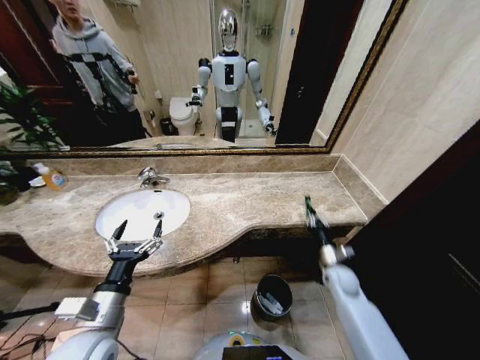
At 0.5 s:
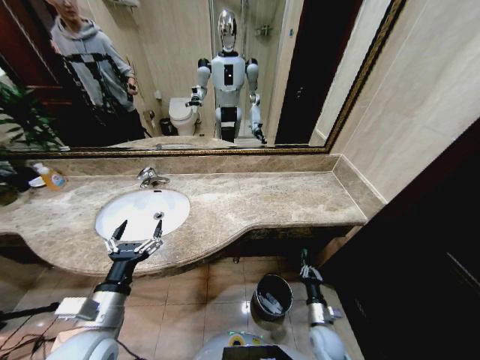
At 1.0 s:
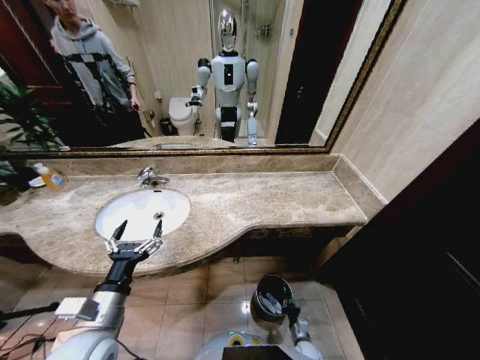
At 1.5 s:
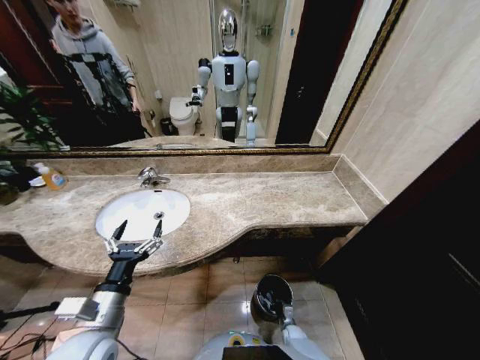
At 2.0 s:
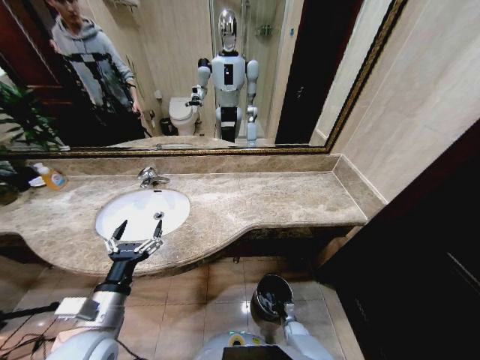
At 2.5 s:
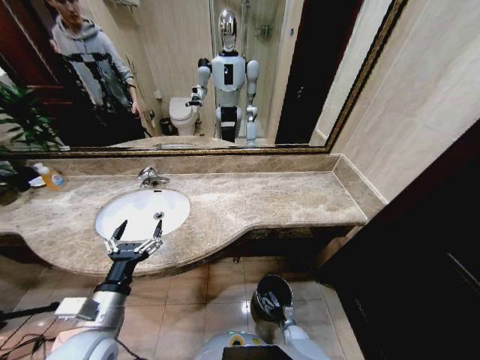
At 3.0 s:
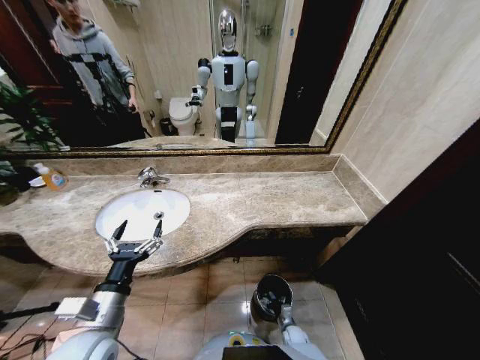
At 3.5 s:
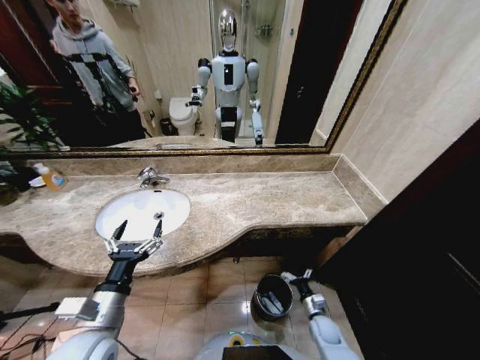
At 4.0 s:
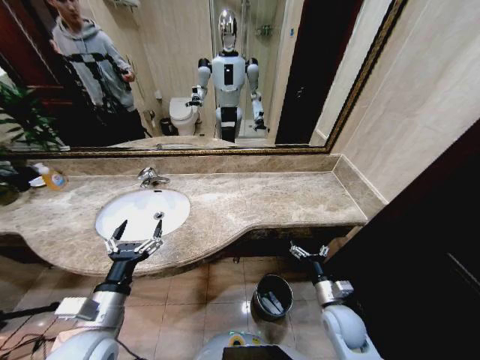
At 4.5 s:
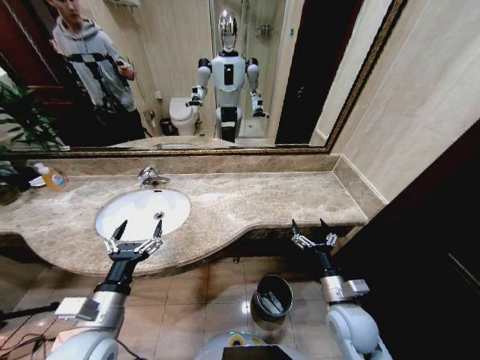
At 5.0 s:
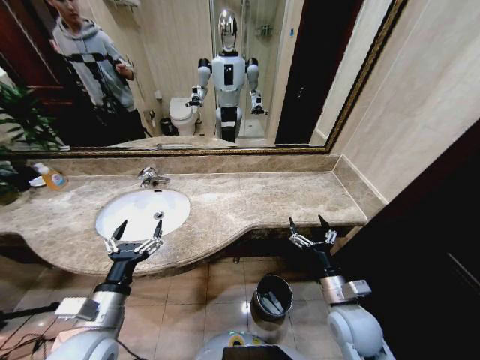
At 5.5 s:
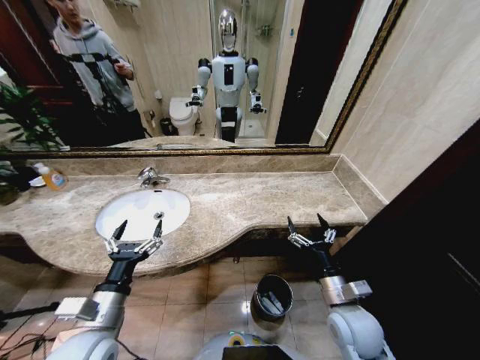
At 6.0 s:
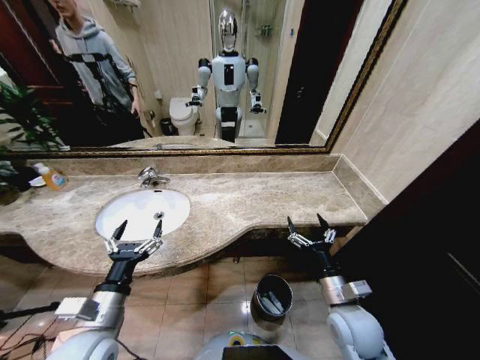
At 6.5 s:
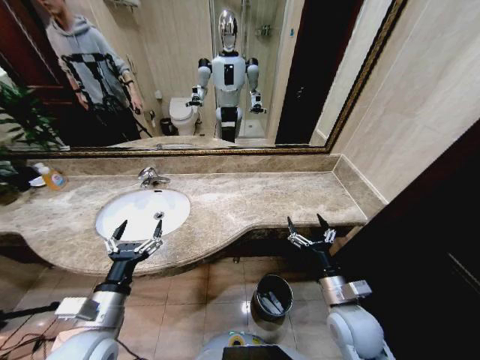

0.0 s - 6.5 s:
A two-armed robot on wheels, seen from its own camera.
Task of the whole recording: Pick up the trash from the sink and place it in the trash bin.
0.0 s - 2.0 s: The right gripper moves downward, approximately 30 cm.
2.0 s - 4.5 s: The right gripper shifts some 40 cm upward, and opens its fingers.
4.5 s - 6.5 s: The grippers make only small movements.

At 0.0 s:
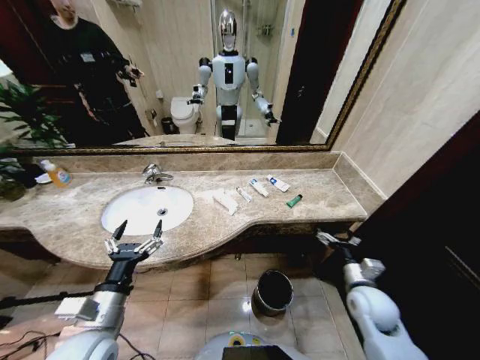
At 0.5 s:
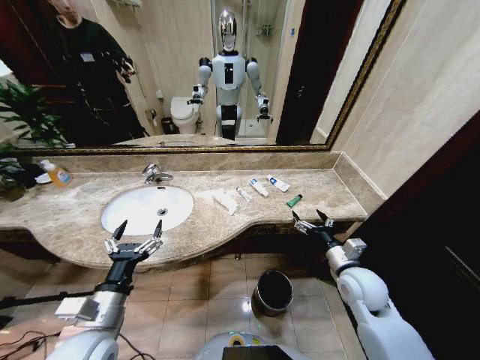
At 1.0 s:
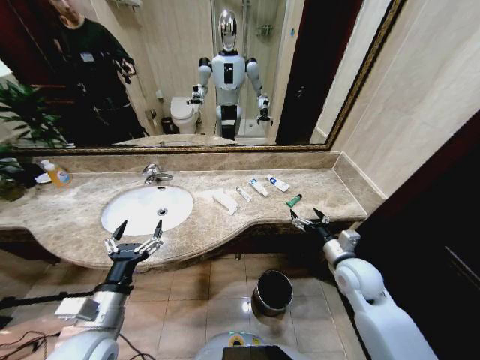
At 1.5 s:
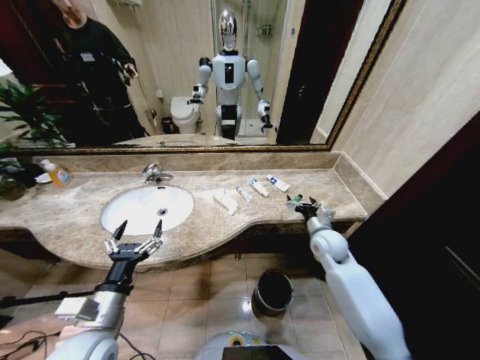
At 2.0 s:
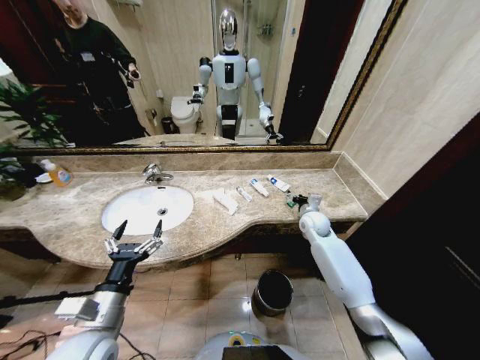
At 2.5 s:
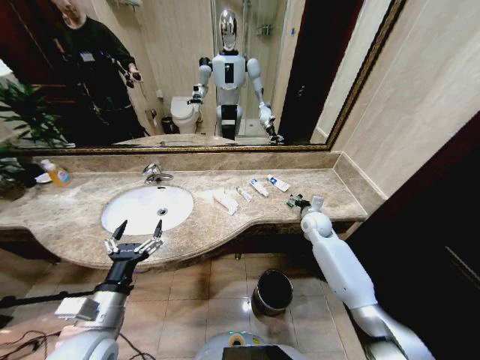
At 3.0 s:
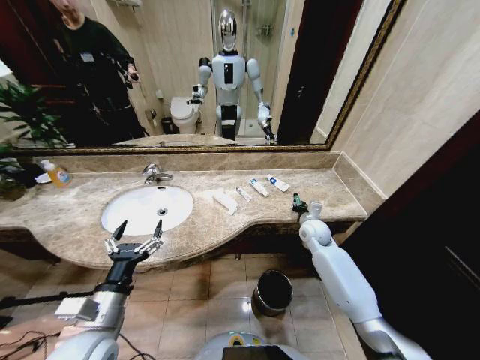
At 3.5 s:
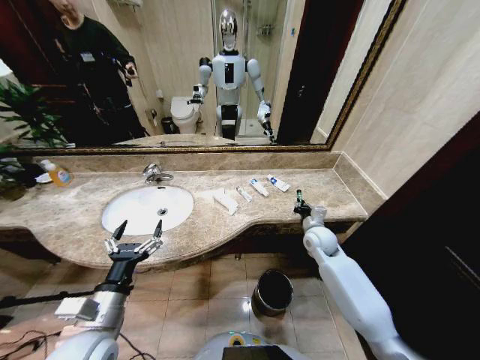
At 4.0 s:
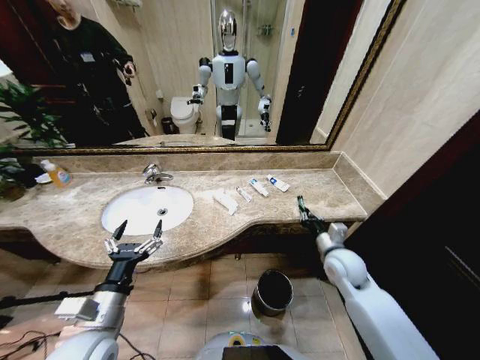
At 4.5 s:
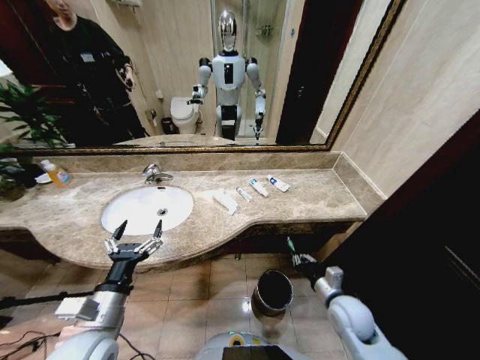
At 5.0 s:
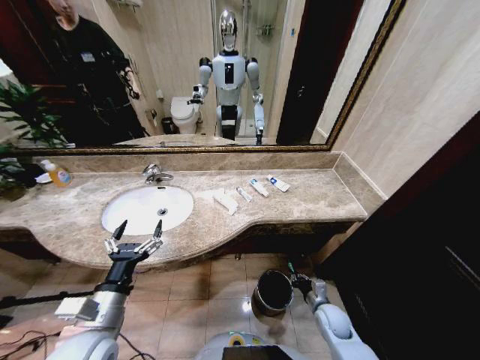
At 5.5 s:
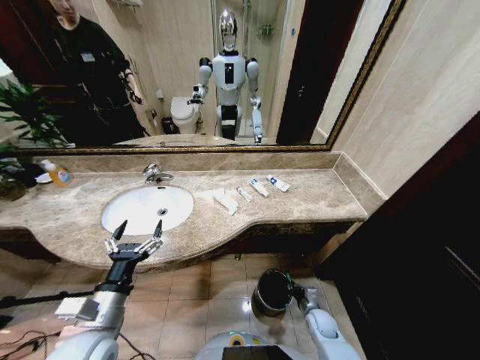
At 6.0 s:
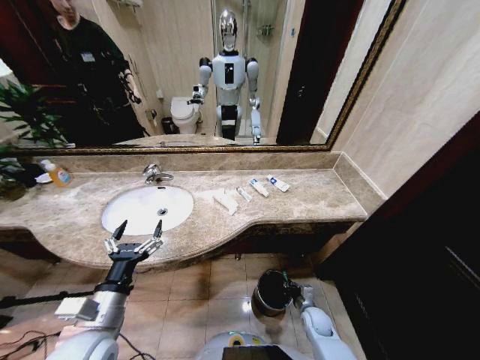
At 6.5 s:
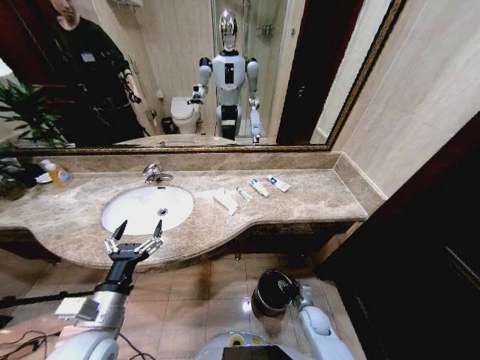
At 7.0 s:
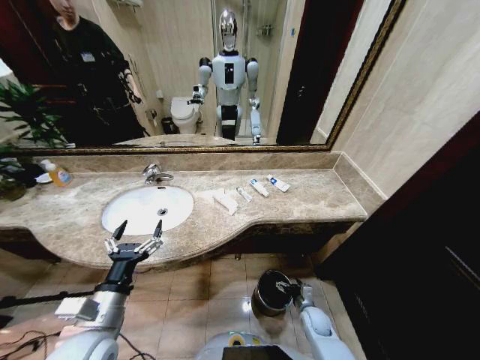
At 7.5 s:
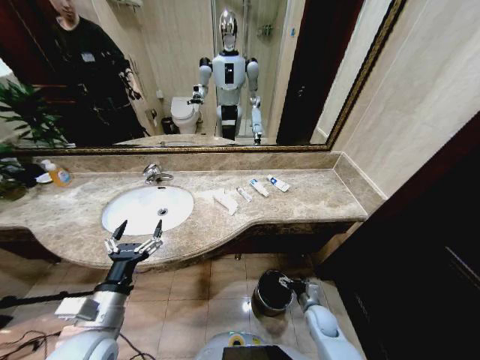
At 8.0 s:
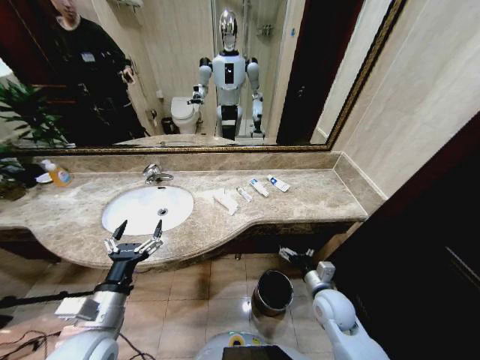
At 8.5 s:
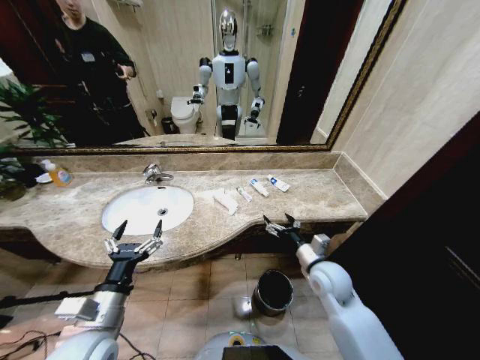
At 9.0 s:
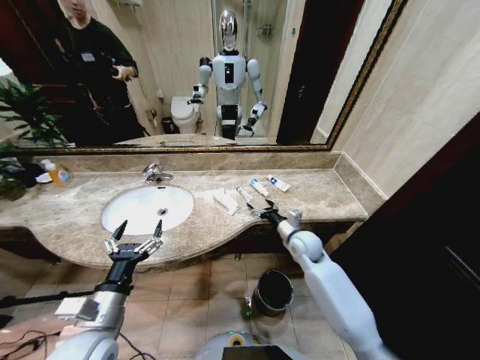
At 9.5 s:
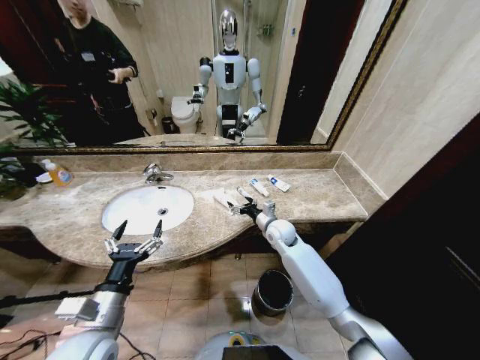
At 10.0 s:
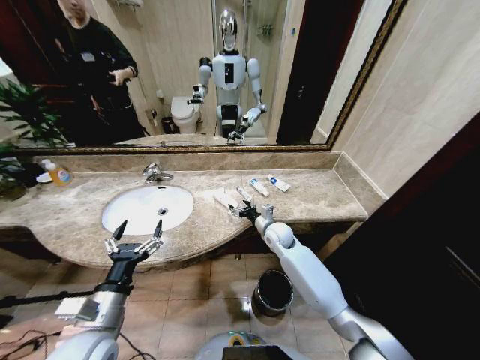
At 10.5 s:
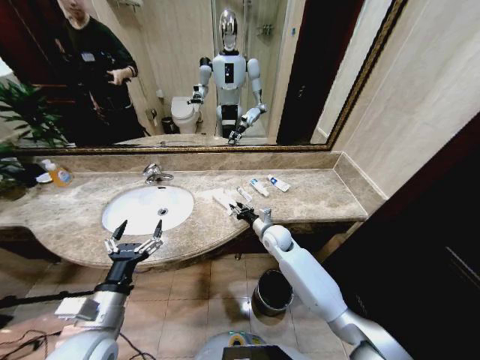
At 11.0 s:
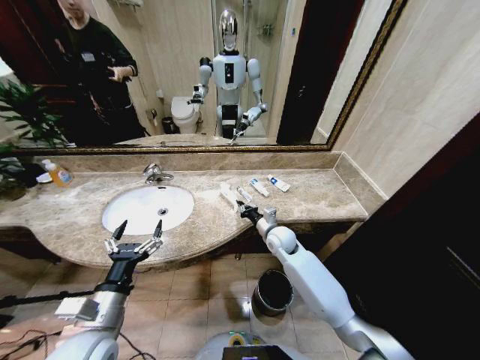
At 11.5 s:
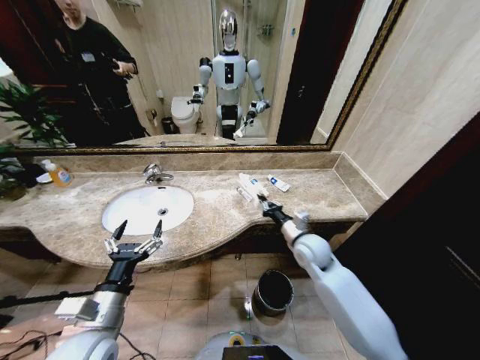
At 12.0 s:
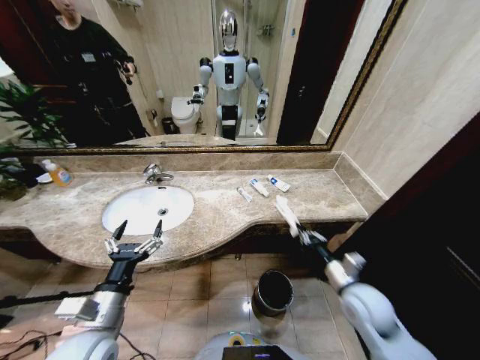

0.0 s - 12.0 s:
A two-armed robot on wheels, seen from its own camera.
Task of the whole recording: Pick up the trash from the sink and place it in the trash bin.
2.0 s - 4.0 s: The right gripper is displaced backward by roughly 15 cm, and closes.
4.0 s - 6.0 s: The right gripper goes some 25 cm downward.
6.0 s - 8.0 s: The right gripper goes some 20 cm upward, and opens its fingers.
8.0 s - 10.0 s: The right gripper goes approximately 25 cm forward and to the left.
10.0 s - 12.0 s: The right gripper moves backward and to the right, about 25 cm, and closes its fingers.

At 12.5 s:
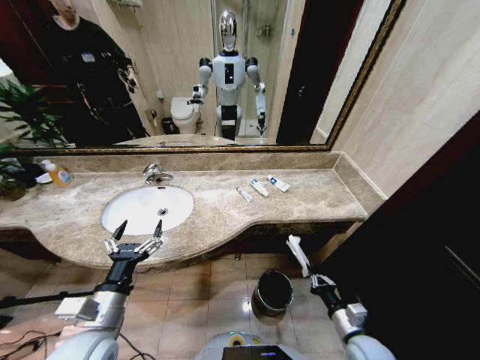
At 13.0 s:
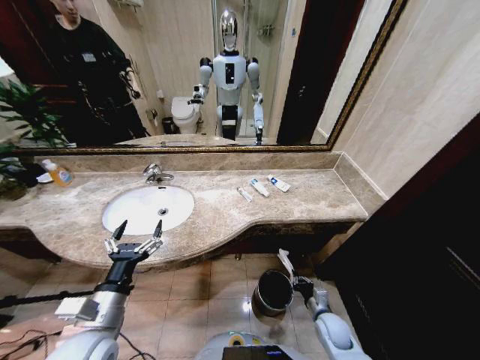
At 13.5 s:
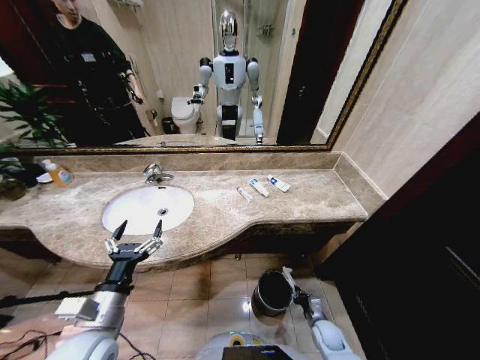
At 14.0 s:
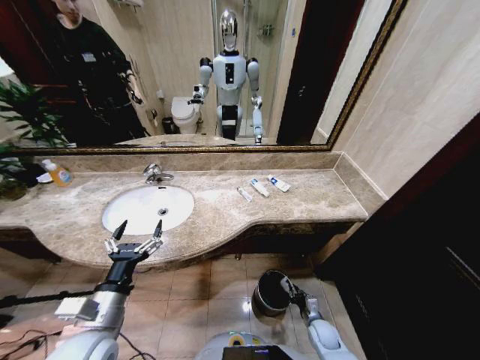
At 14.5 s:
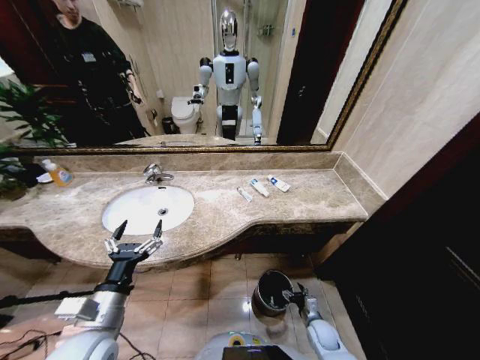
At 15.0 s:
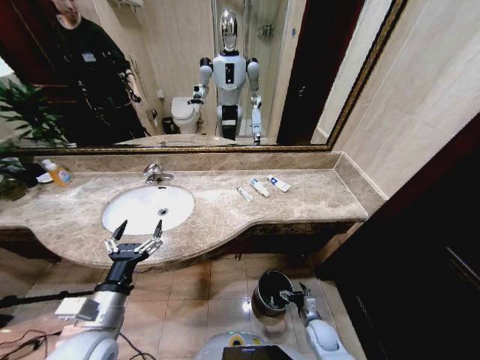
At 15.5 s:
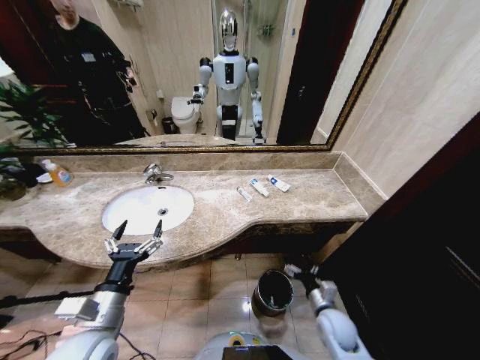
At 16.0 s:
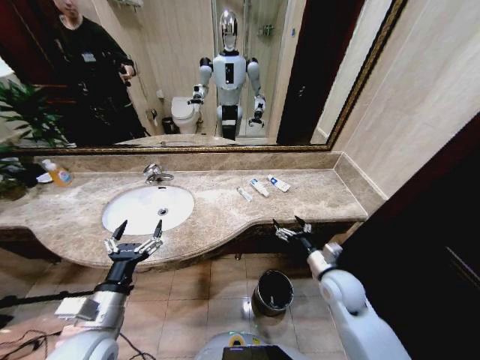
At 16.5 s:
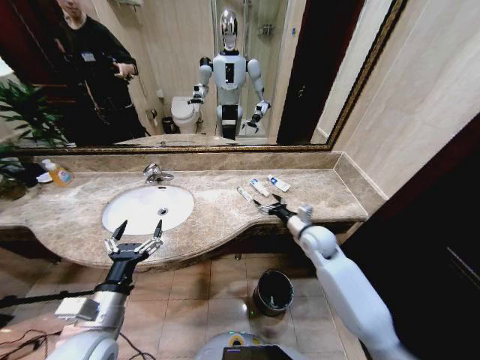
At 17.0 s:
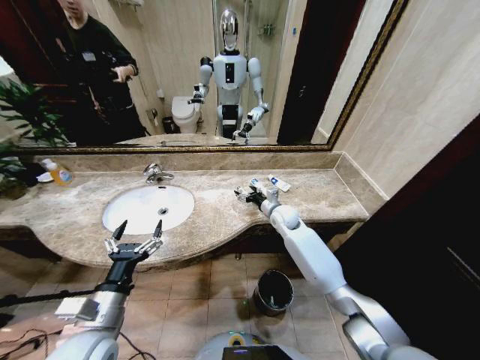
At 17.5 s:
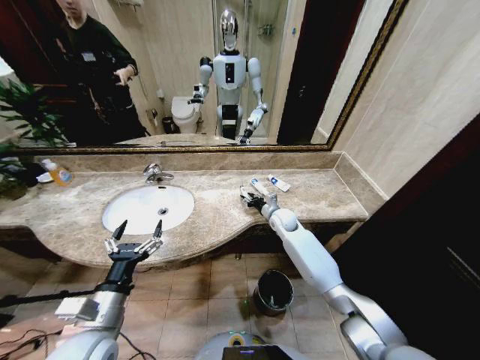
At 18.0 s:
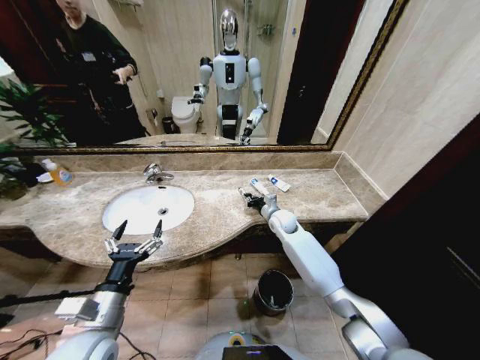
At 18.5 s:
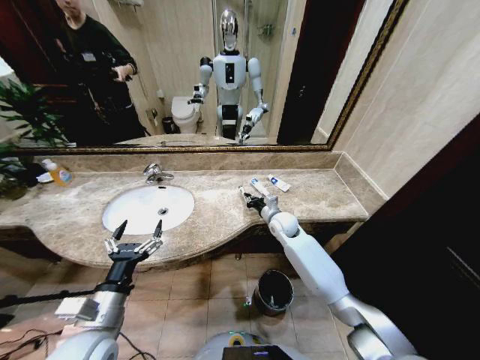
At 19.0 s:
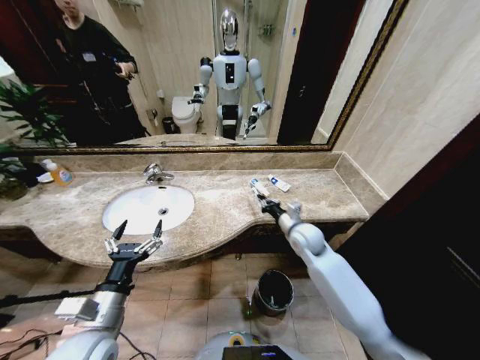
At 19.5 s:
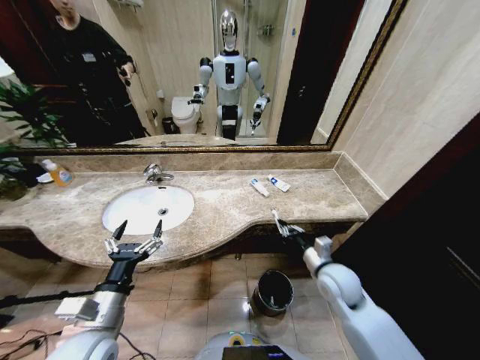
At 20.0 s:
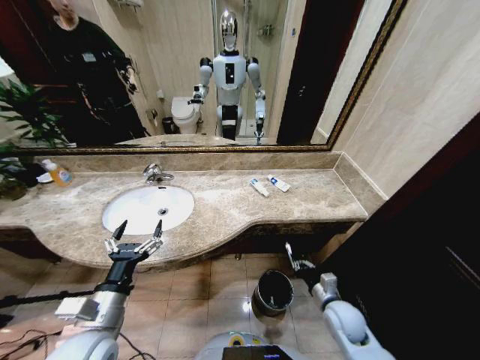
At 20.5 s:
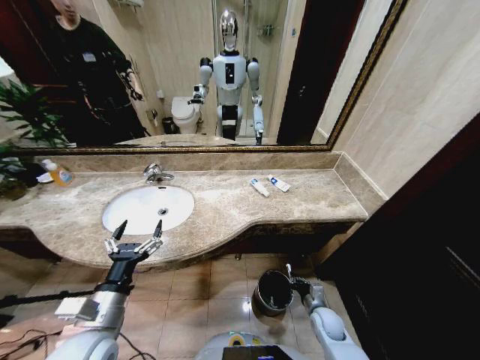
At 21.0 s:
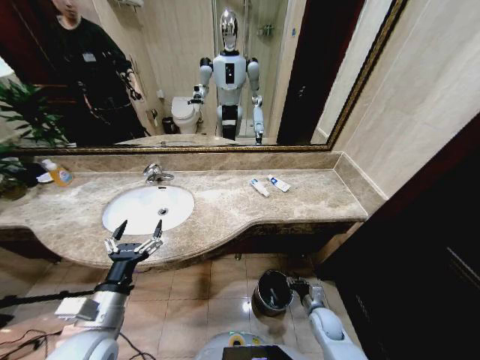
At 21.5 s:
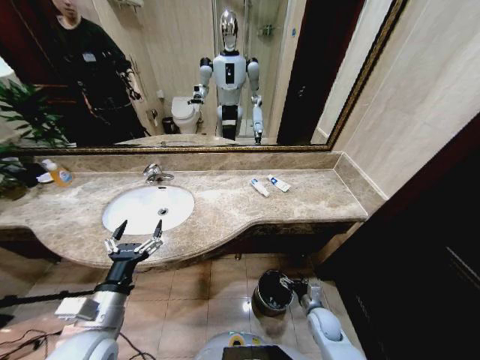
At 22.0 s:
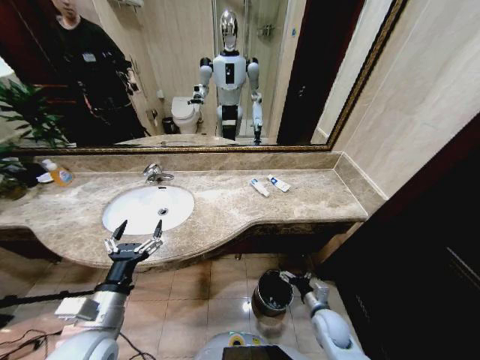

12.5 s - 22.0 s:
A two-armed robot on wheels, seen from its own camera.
Task of the whole recording: Pick up the trash from the sink and place it in the trash bin.
12.5 s - 14.5 s: The right gripper shifts some 15 cm downward, and opens.
14.5 s - 16.5 s: The right gripper moves upward and forward, about 35 cm.
16.5 s - 18.0 s: The right gripper heads forward and to the left, covering some 10 cm, and closes its fingers.
18.0 s - 20.0 s: The right gripper travels backward and to the right by about 30 cm.
20.0 s - 22.0 s: The right gripper goes some 5 cm downward, and opens up.
